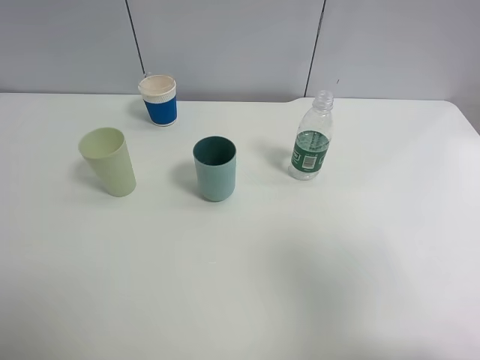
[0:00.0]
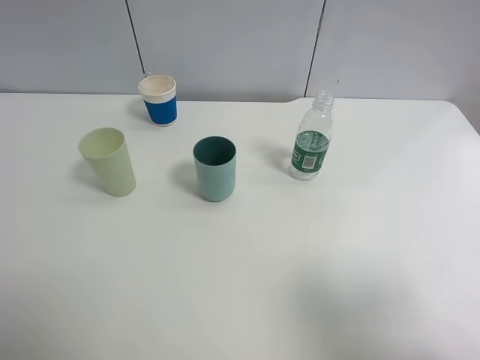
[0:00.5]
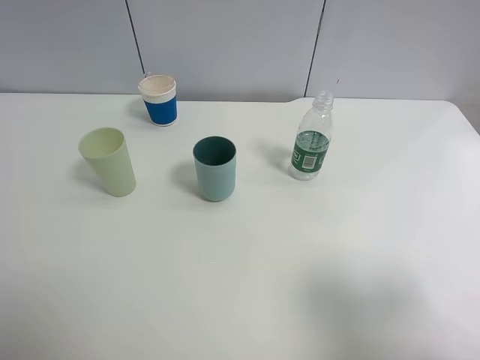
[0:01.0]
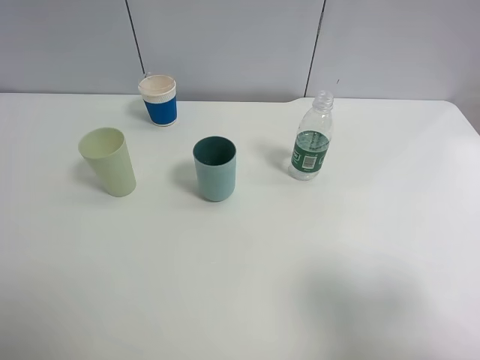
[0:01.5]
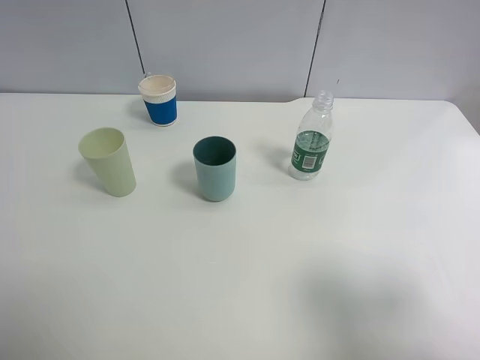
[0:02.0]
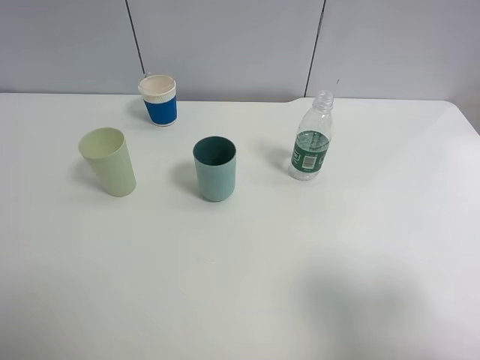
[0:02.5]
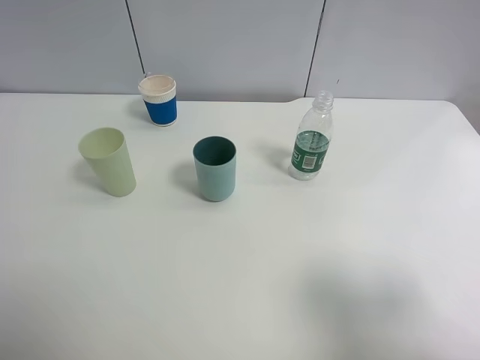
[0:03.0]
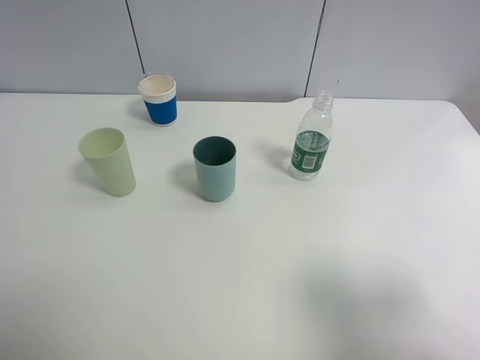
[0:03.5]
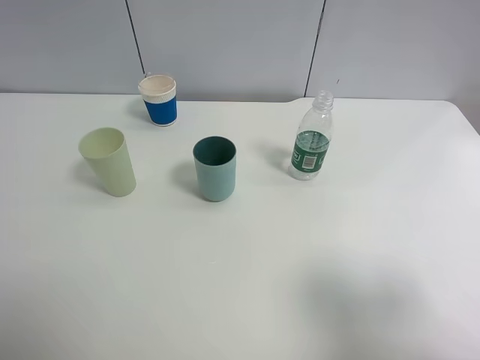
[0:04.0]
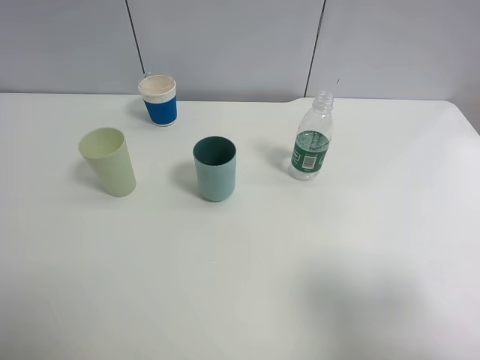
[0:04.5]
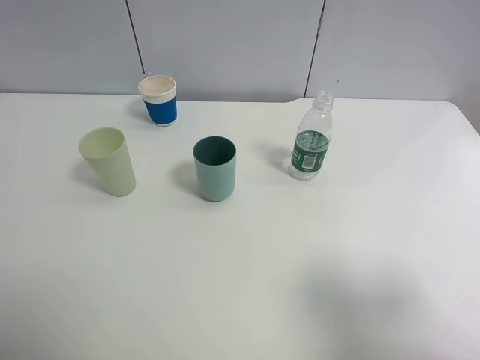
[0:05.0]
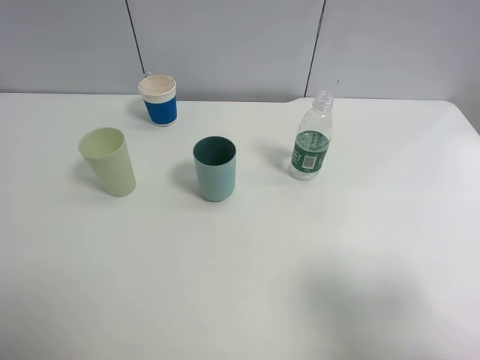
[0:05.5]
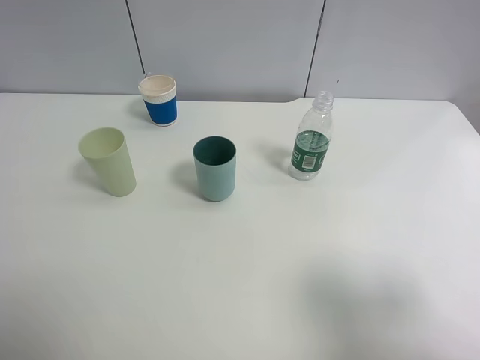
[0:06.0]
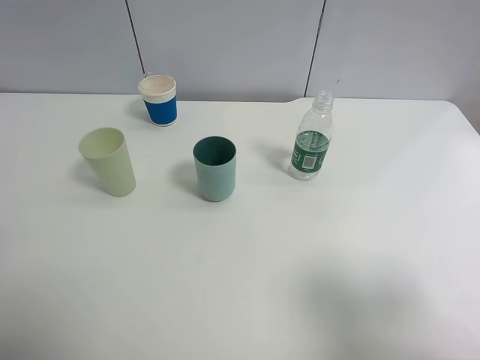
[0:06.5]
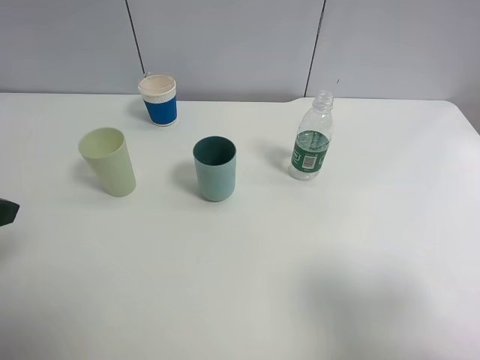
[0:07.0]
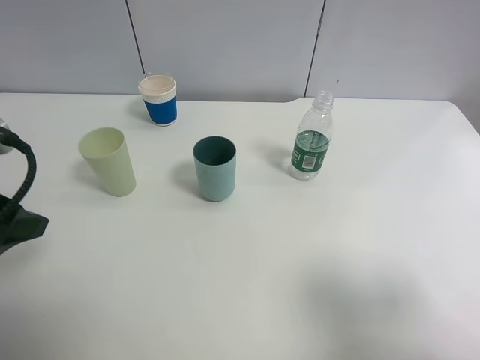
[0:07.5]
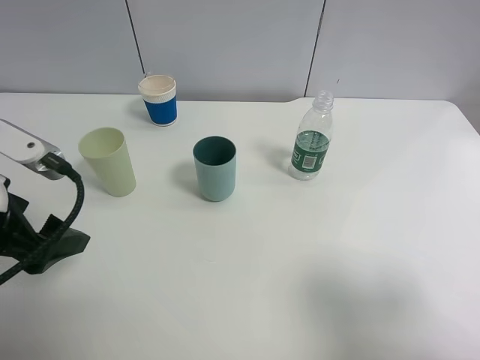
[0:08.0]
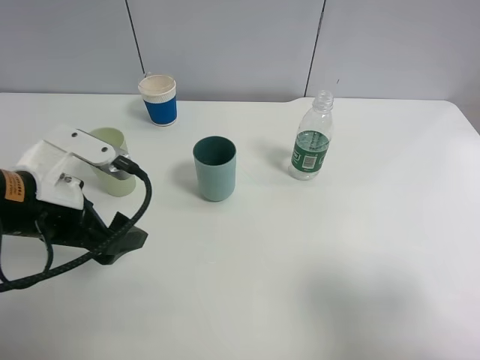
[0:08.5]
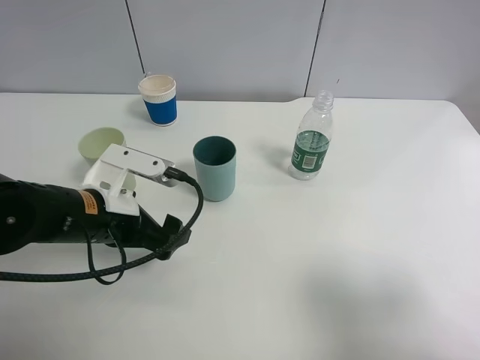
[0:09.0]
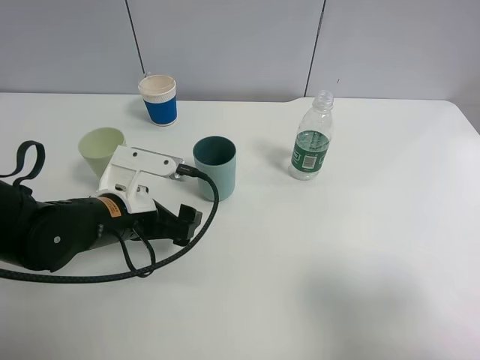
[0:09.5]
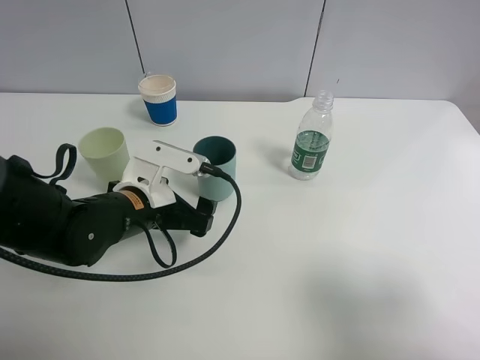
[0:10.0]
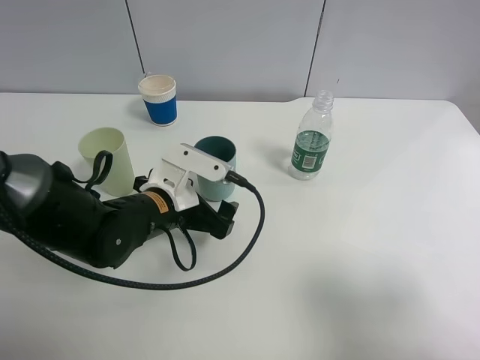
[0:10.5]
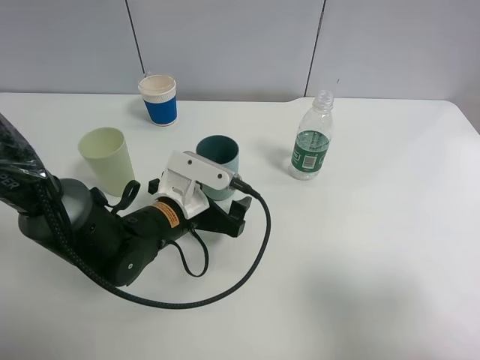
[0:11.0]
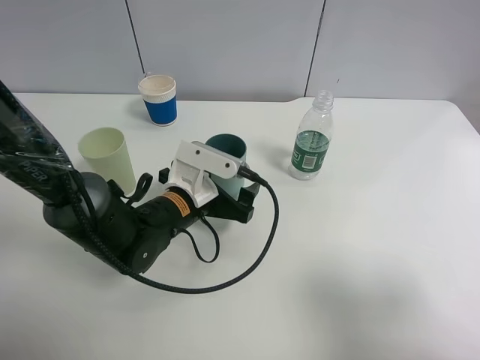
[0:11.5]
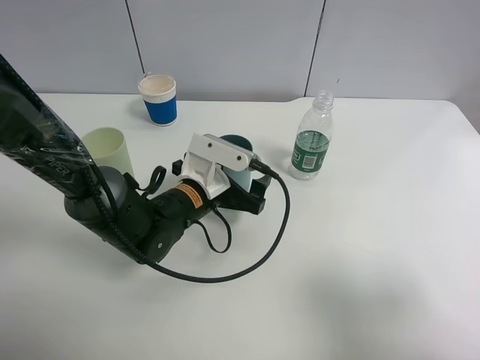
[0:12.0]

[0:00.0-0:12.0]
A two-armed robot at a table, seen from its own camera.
Task of the whole recording: use a clamp to hold the bottle of the drink, pour the beverage into a random cup, then clamp the cup containing the drink and pour the drink into another random cup.
0:00.0 to 0:02.0: The right gripper moves downward, about 5 cm.
0:02.0 to 0:04.0: Neither gripper changes place.
0:06.0 to 0:08.0: The left gripper shifts approximately 15 cm downward, forward and to the right.
0:08.0 to 0:10.0: The left gripper is displaced to the right, downward and forward by some 20 cm.
0:10.0 to 0:12.0: The left gripper goes some 5 cm to the right.

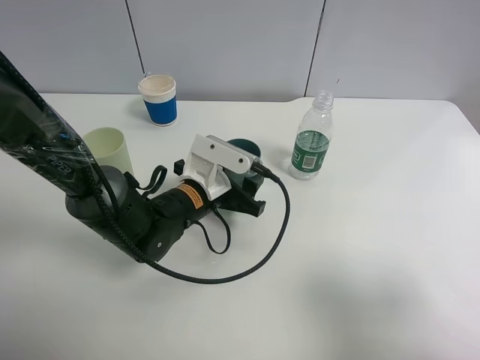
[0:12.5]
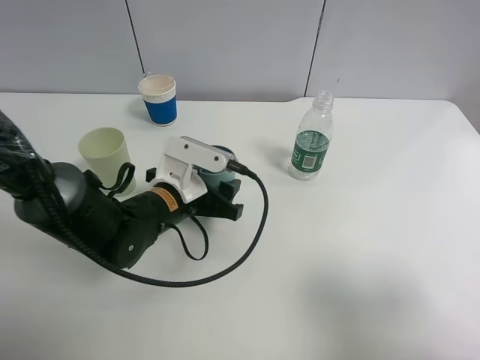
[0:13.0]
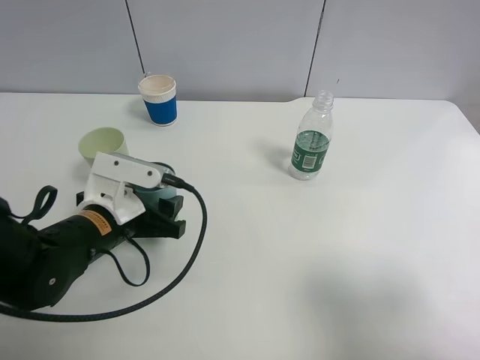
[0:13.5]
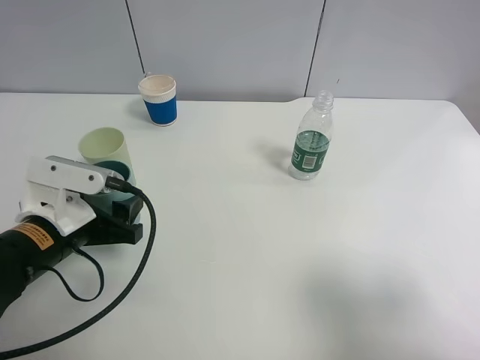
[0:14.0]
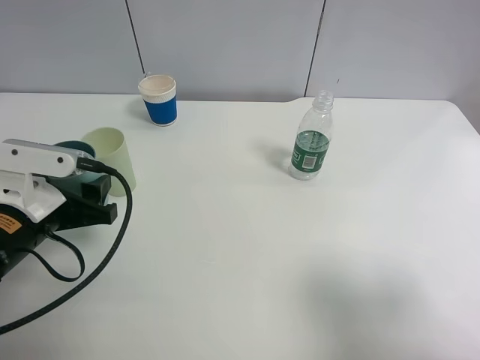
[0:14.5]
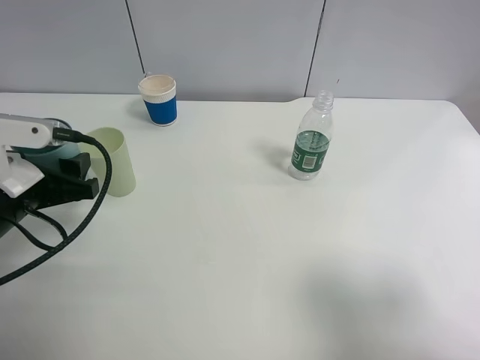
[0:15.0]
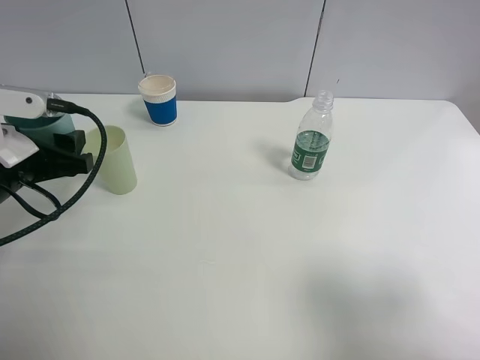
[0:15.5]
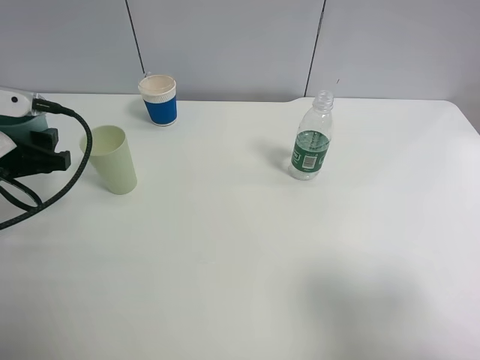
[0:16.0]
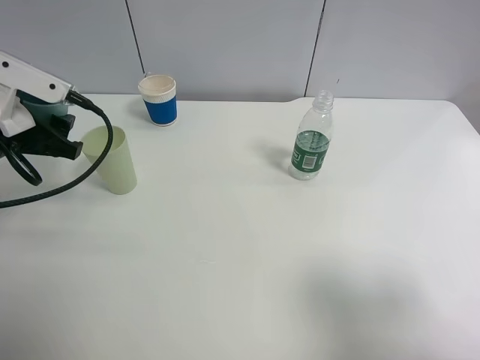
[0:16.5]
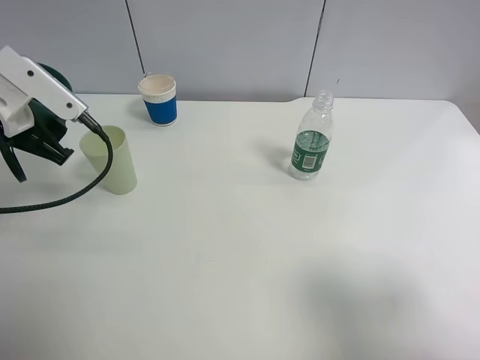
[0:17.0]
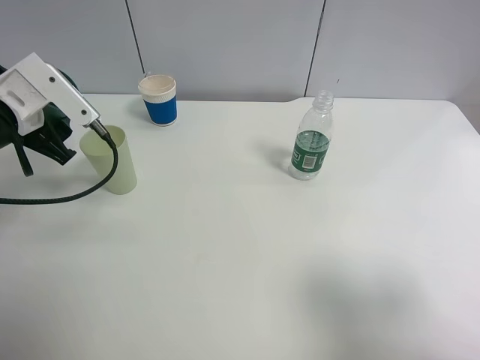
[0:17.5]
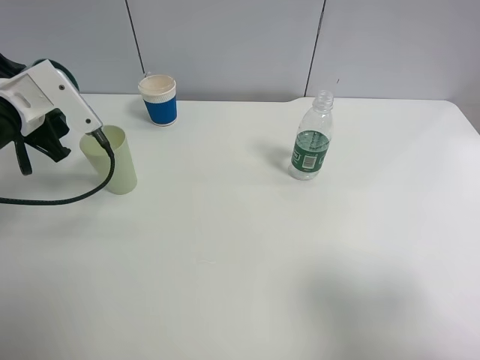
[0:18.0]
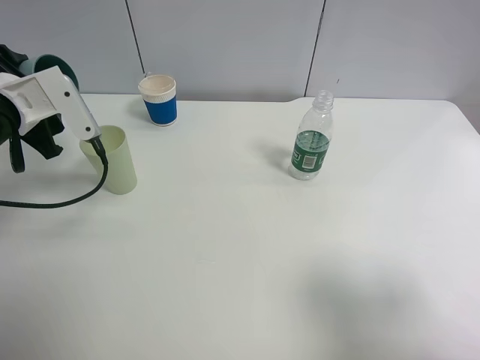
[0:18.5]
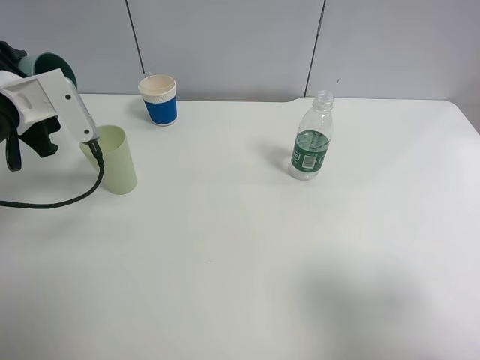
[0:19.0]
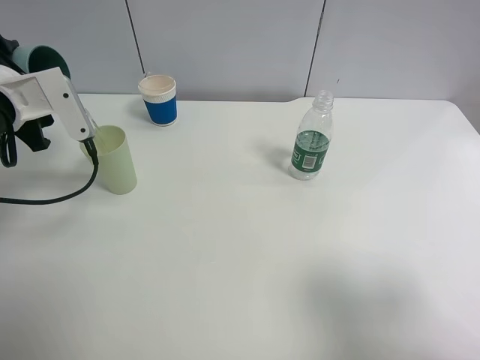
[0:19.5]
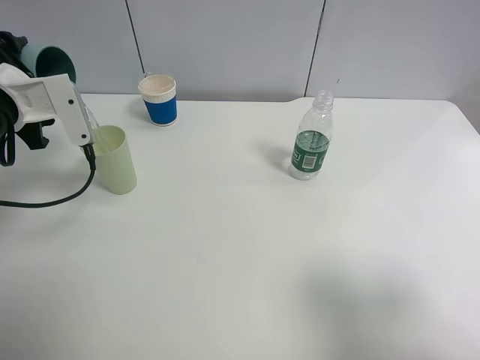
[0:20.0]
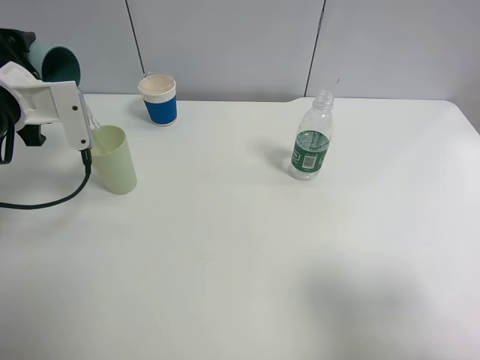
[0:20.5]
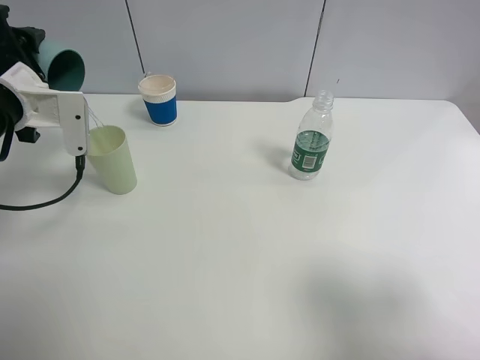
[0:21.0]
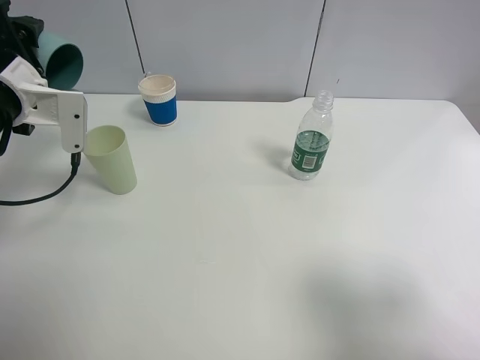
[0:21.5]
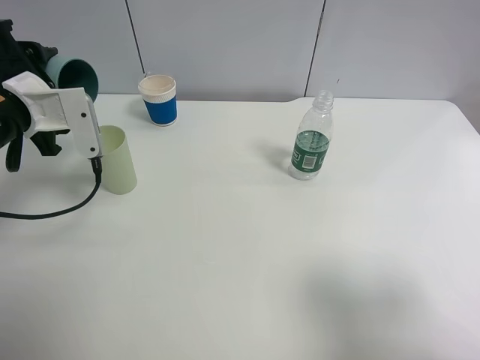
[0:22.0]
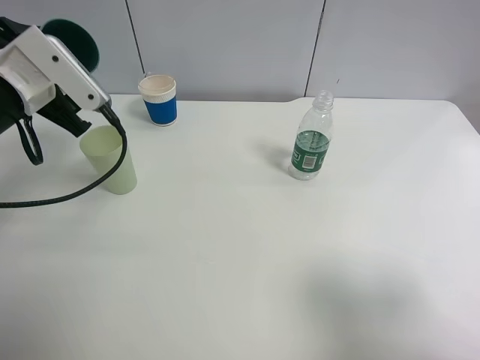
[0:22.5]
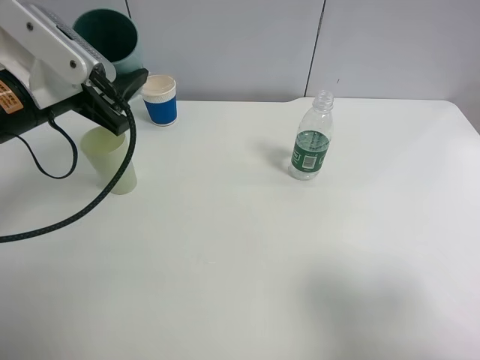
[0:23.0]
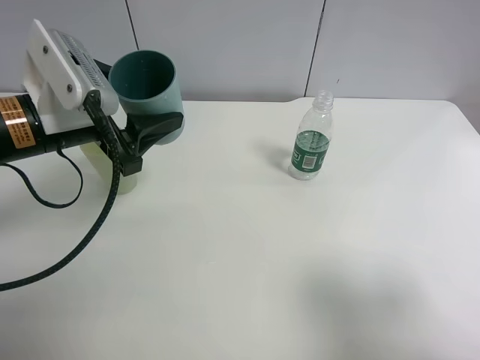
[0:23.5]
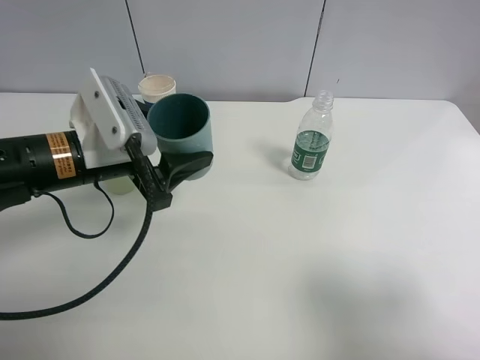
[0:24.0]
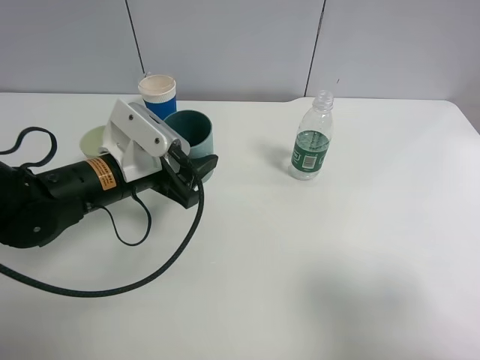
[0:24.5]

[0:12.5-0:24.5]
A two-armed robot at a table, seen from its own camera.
Task of the whole recording: use a clamp to hold the bottle of the drink, pour the beverage into a random cup, then clamp the cup containing the drink and pour the drink into another random cup.
Step, 0:13.0 to 0:22.0: Pour water into the green plastic cup with left gripper.
0:12.5 to 0:14.5: The left gripper shifts roughly 20 cm to the left, backward and upward.
0:14.5 to 0:16.5: The left gripper moves forward and upward, roughly 10 cm.
0:22.5 to 0:24.5: The left gripper heads to the right and downward, covering roughly 15 cm.

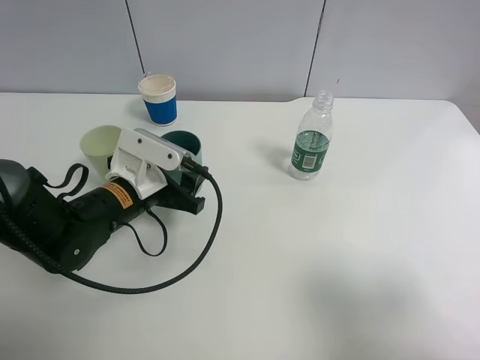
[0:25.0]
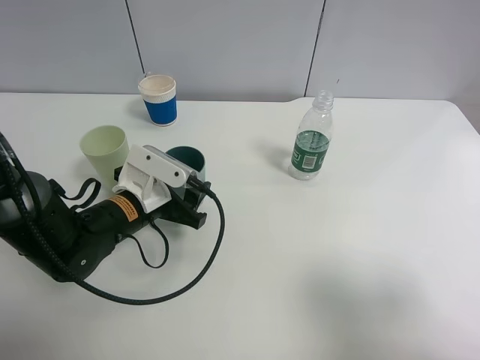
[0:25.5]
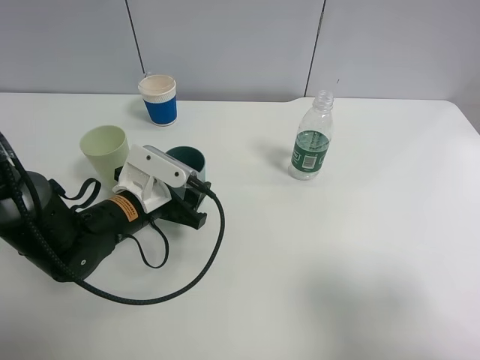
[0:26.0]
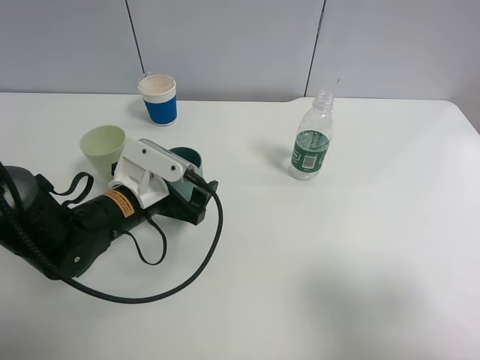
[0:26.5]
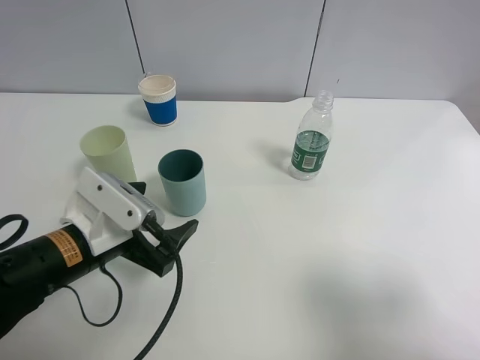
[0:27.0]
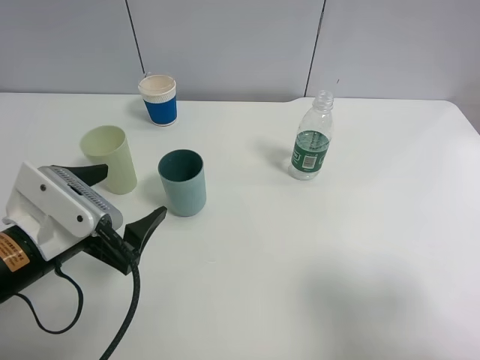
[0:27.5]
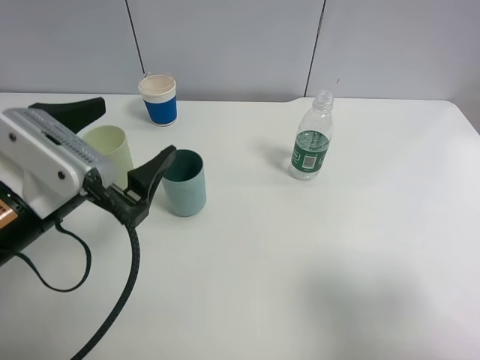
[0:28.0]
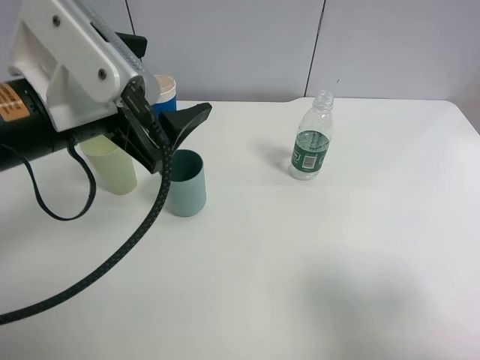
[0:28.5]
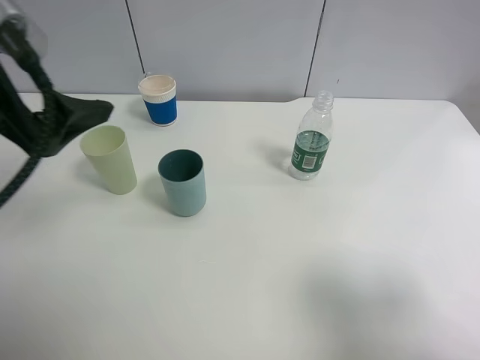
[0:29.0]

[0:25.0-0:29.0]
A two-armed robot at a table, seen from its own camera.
Task of the whole recording: use a clamp to hold the bottle of the drink, pour the beverage into a random cup, then clamp the cup containing the drink and pour the drink into another random cup.
0:25.0 to 0:27.0: The left gripper is displaced backward by roughly 10 cm, and opens up.
0:27.0 to 0:29.0: The left gripper heads upward, covering roughly 20 cm.
